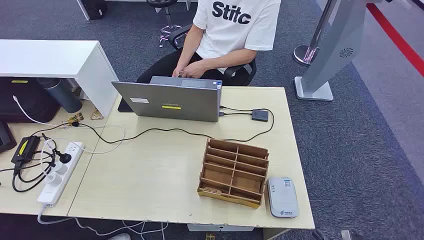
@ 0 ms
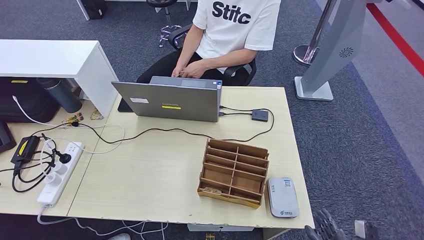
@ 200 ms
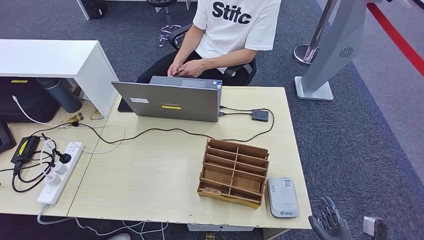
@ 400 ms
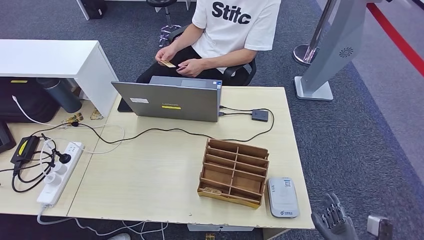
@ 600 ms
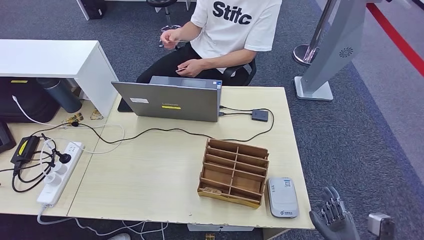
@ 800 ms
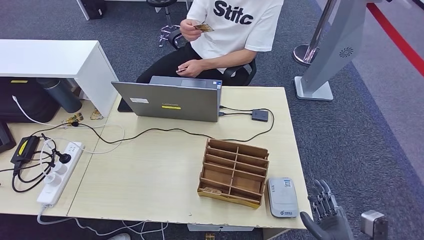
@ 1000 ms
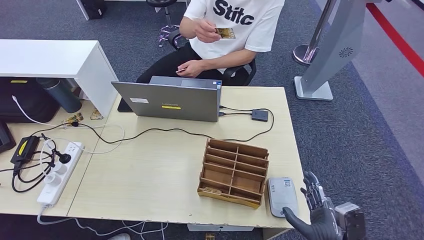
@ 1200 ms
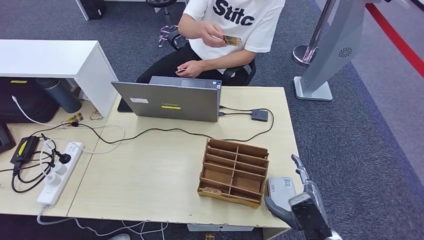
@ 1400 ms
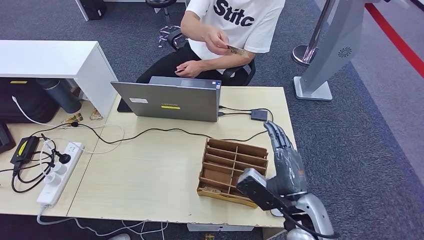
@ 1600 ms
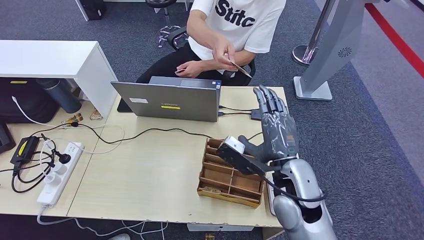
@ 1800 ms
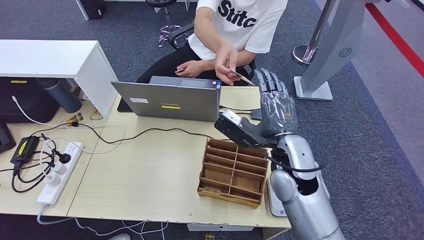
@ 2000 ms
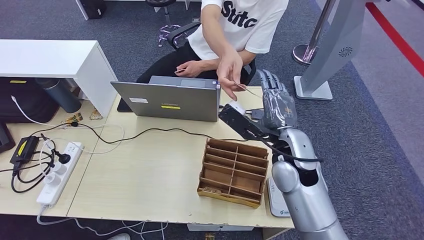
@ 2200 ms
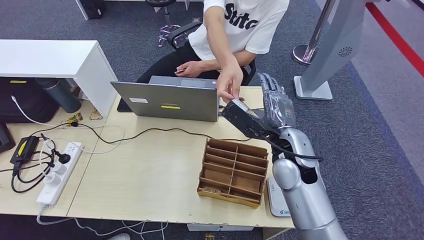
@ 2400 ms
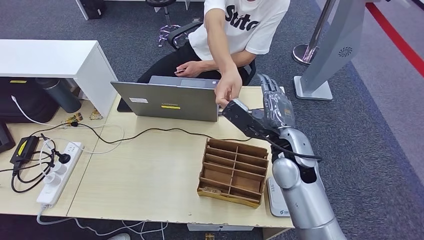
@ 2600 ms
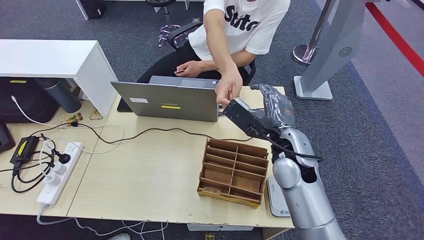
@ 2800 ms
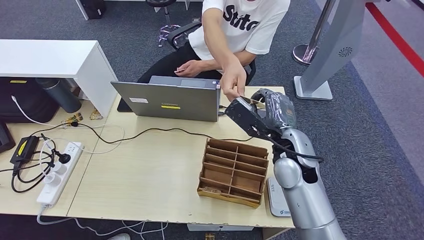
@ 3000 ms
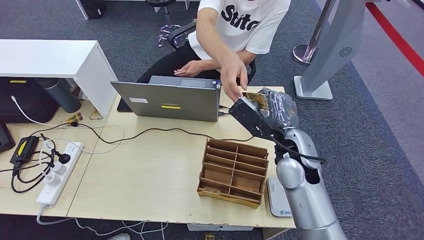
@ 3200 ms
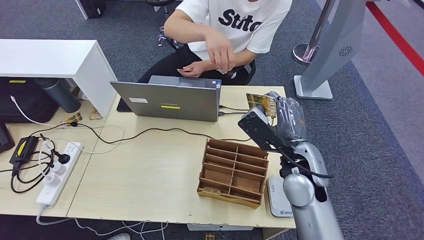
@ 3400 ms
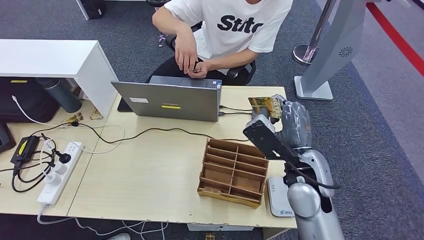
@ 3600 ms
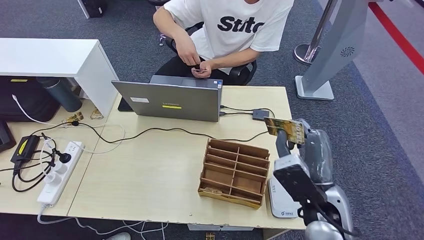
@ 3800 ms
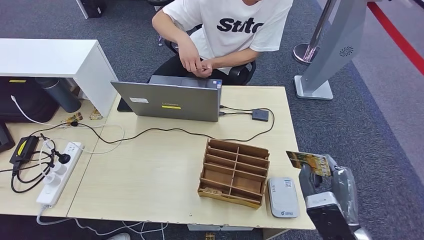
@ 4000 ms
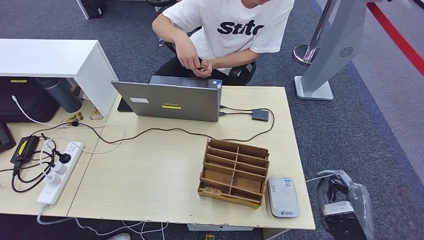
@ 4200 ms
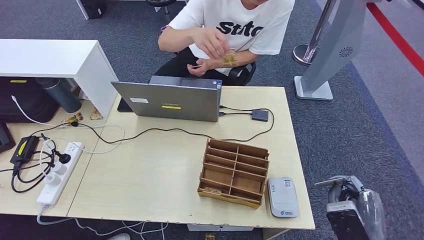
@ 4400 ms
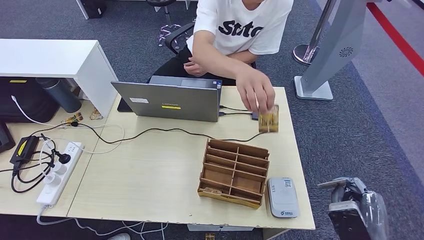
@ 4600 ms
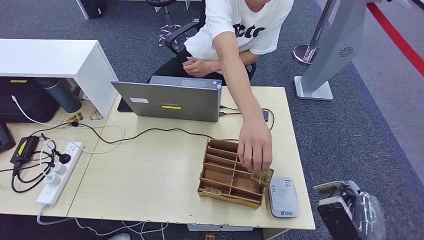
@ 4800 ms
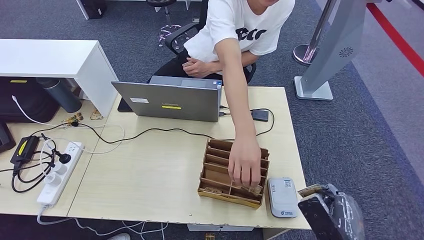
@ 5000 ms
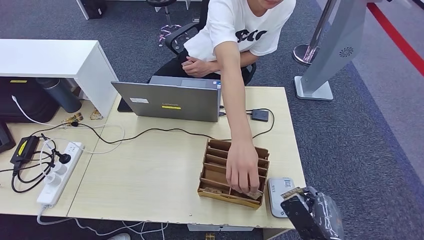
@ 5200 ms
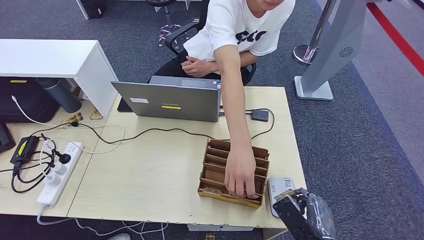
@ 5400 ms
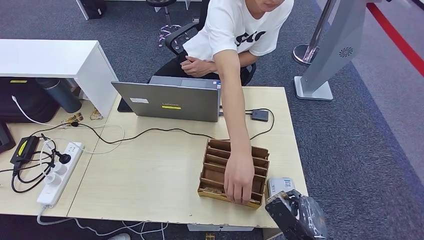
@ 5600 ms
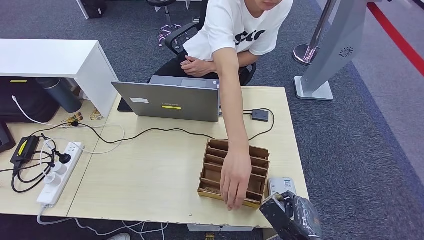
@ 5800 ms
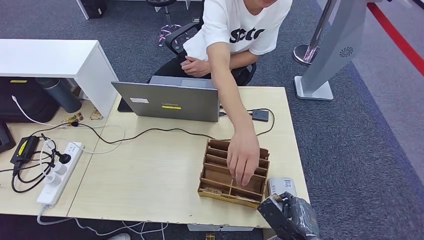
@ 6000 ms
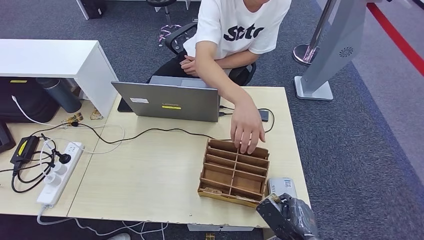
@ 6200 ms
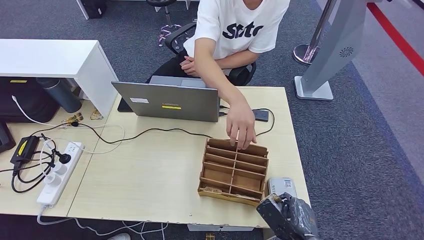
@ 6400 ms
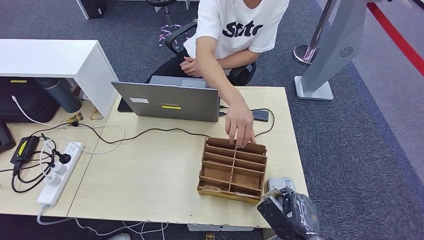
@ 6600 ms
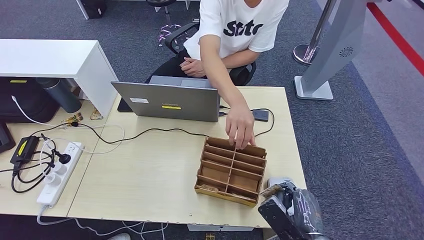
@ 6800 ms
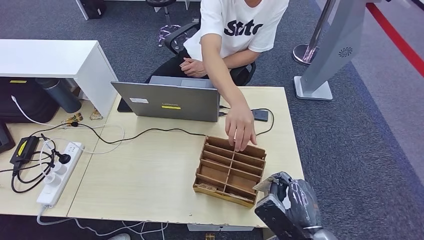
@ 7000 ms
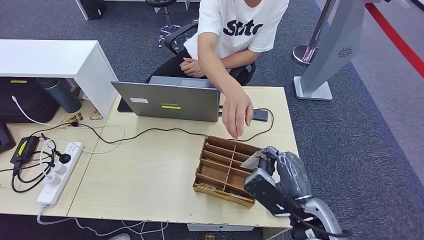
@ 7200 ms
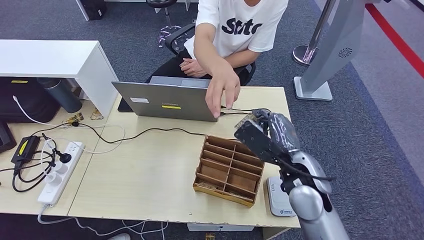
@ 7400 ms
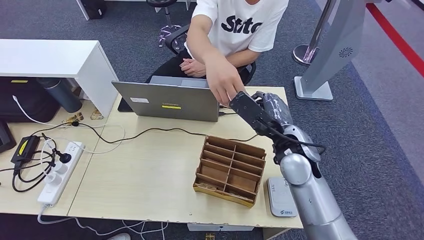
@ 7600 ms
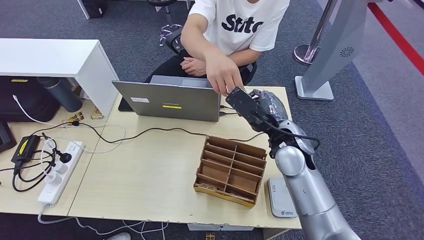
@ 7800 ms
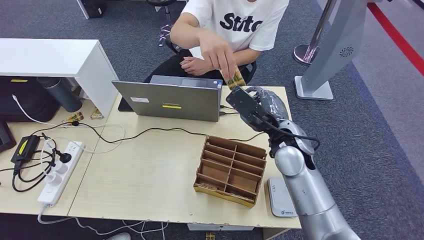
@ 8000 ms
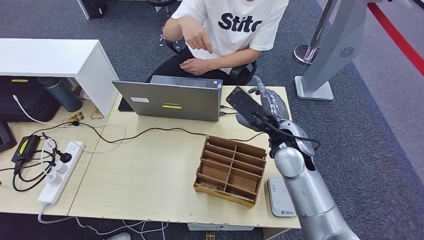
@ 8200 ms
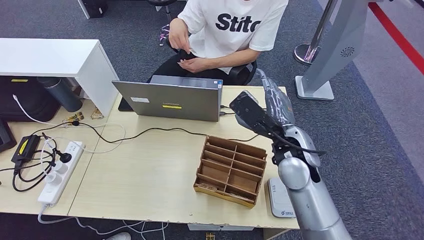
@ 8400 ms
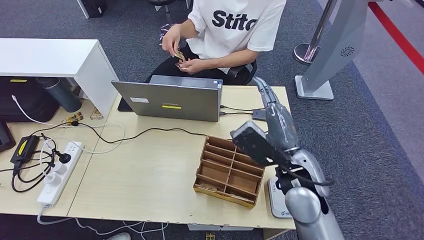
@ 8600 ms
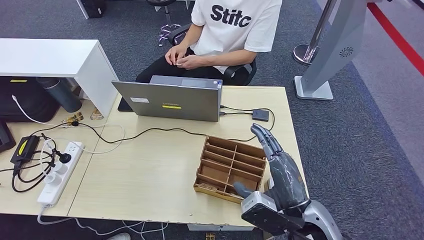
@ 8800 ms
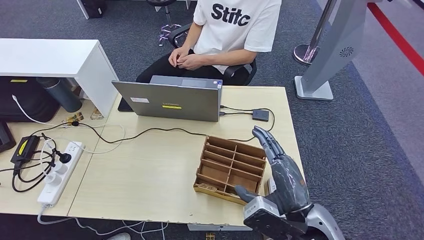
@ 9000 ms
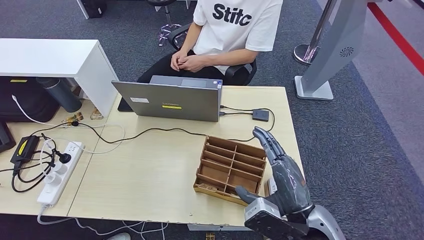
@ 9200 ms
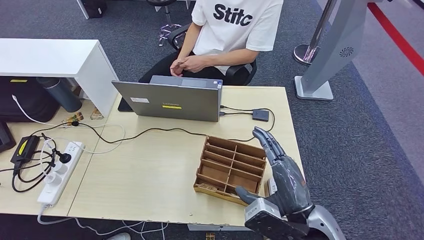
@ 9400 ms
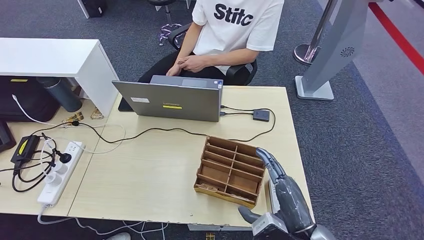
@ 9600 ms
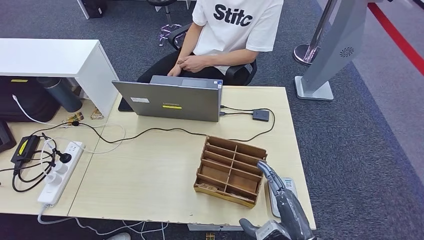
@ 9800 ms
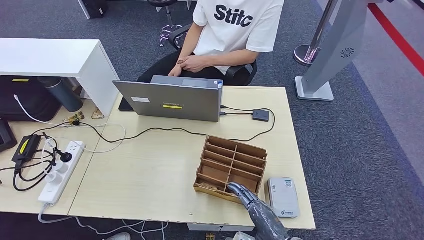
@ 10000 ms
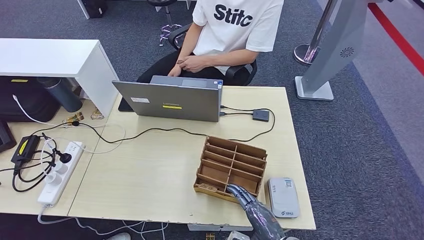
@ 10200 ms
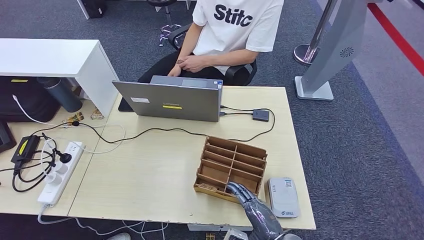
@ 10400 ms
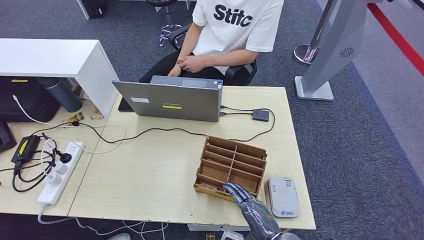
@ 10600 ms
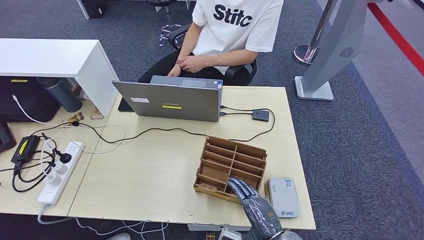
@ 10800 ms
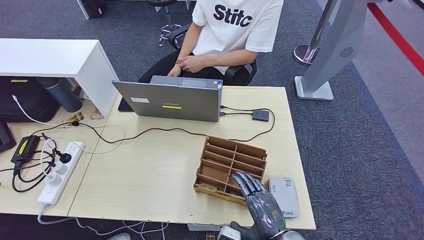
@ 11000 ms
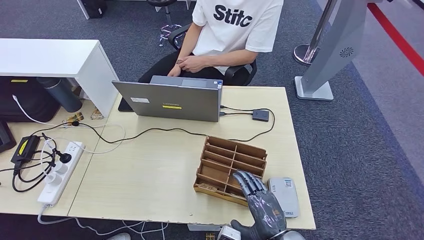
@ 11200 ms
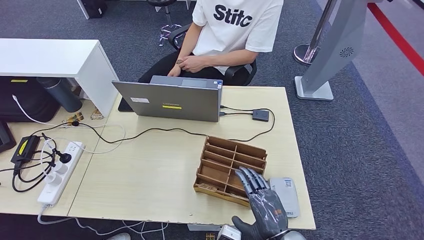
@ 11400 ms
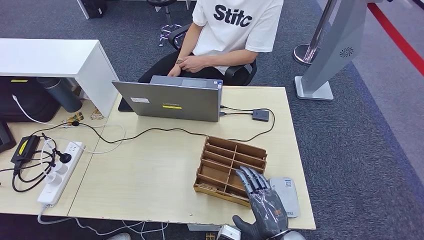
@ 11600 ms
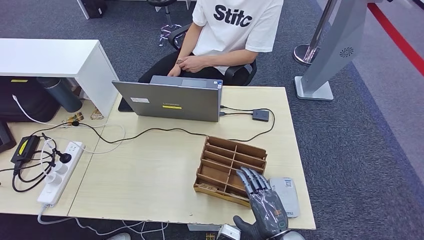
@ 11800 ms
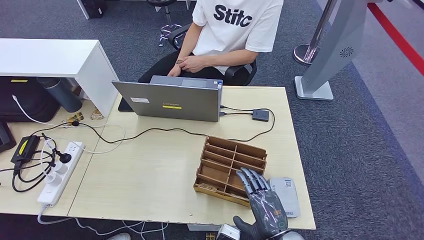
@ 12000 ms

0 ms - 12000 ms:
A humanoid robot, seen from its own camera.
Step, 0 ms - 3400 ms: Take the ID card from the person's hand.
Step, 3600 ms - 5800 ms: Place the ID card on the card reader.
Step, 6200 ms - 8800 ms: Hand the ID card to the person.
1600 ms - 3000 ms: The right hand travels forward and upward by approximately 15 cm.
3000 ms - 4400 ms: The right hand moves backward and to the right, some 25 cm.
4400 ms - 6000 ms: The right hand travels downward and to the left by approximately 10 cm.
6000 ms - 7600 ms: The right hand goes about 25 cm forward and upward.
7600 ms - 9000 ms: The right hand heads backward, covering approximately 15 cm.
9000 ms - 10400 ms: The right hand goes about 10 cm downward.

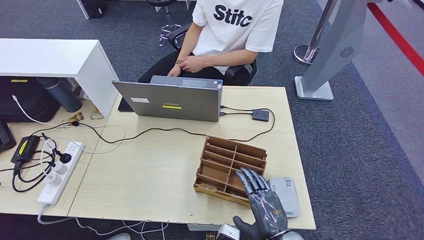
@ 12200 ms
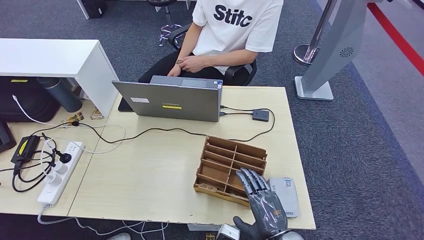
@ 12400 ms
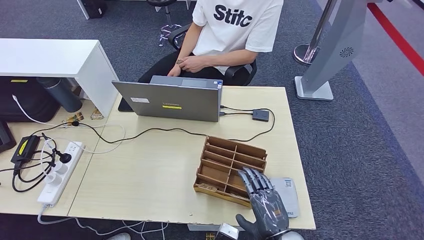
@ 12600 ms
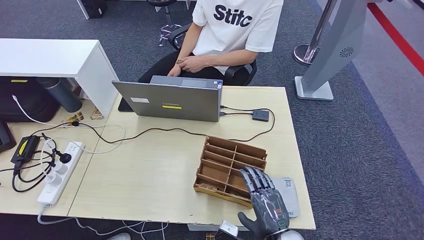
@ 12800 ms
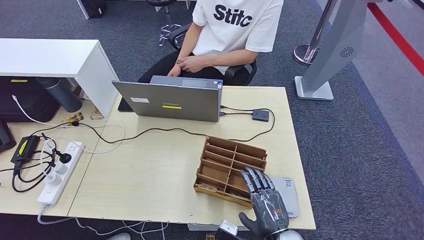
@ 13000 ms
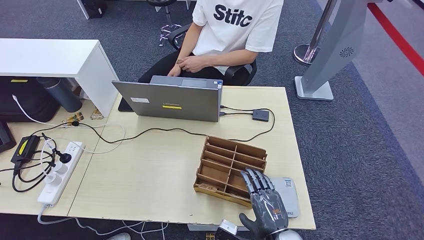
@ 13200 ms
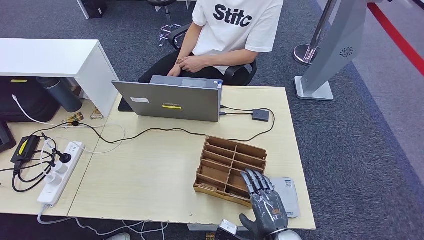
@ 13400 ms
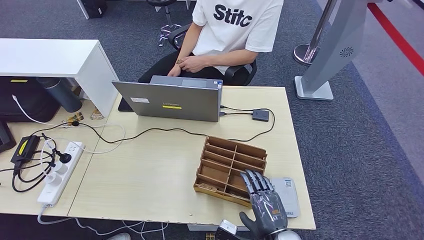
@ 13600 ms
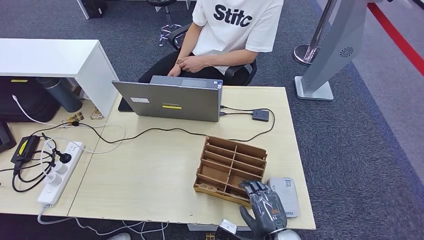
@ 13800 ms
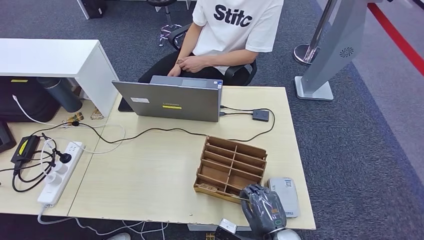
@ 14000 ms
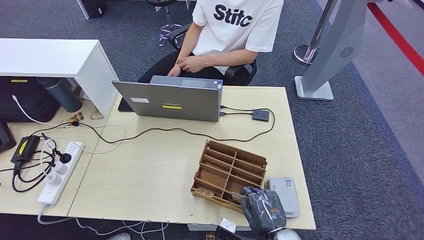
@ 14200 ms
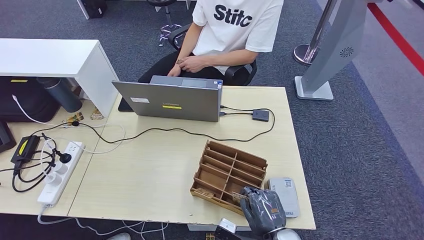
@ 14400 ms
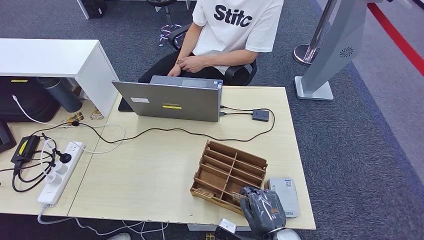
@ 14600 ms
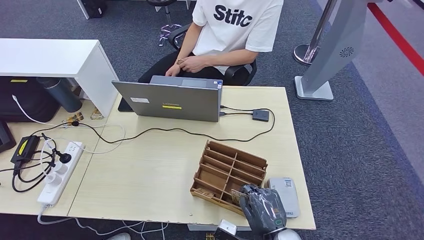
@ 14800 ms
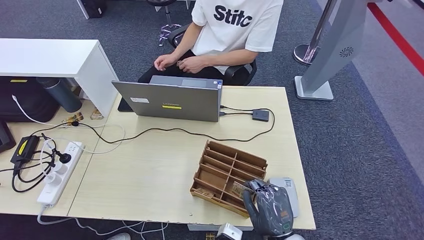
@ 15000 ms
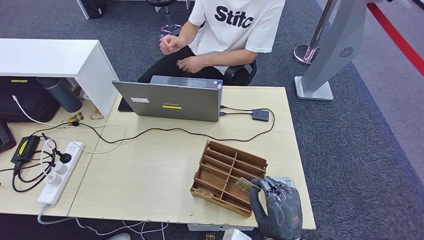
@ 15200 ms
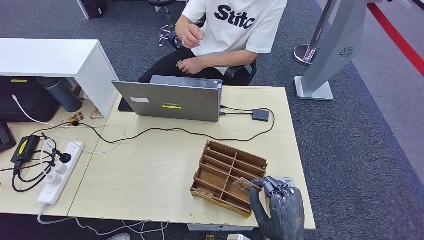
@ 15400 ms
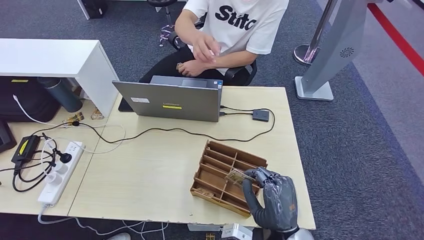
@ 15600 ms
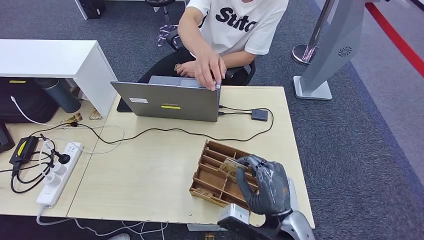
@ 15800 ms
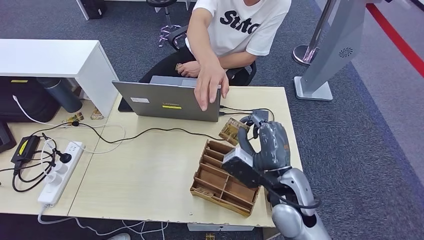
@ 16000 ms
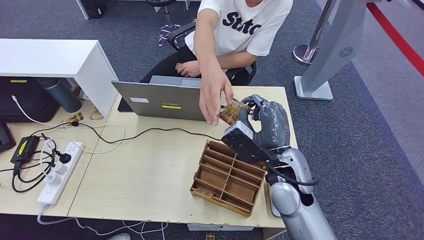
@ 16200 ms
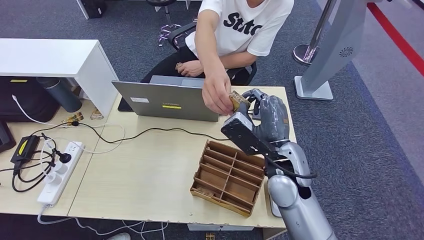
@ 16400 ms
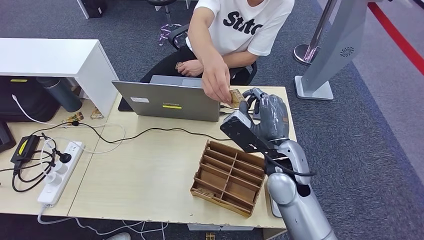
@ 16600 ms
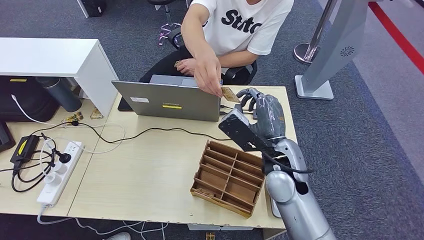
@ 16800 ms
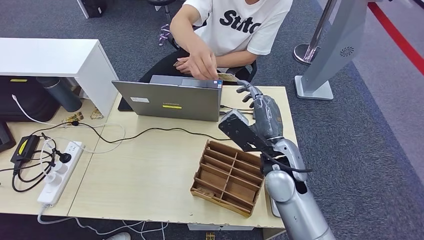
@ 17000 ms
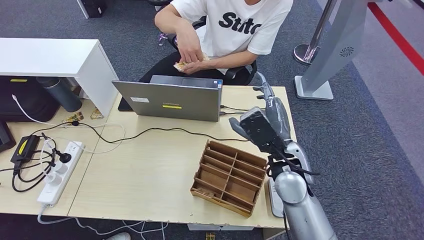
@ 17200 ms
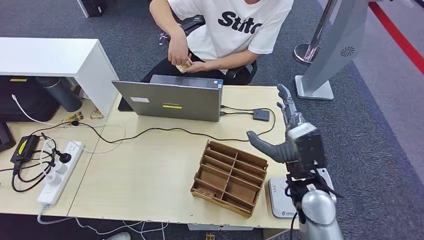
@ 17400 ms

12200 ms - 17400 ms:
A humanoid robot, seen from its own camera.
Step, 12200 ms - 14800 ms: Pick up the room key from the key card box.
Step, 15200 ms - 17200 ms: Hand the room key to the person.
12200 ms - 14000 ms: The hands stay close to where they were, moving slightly.
14000 ms - 15600 ms: The right hand shifts approximately 5 cm upward.
15600 ms - 17400 ms: The right hand moves forward and upward, approximately 15 cm.
